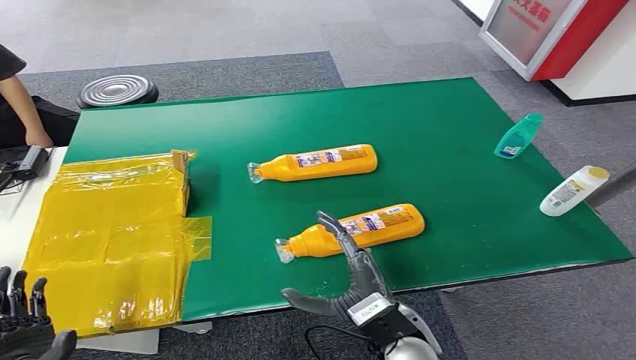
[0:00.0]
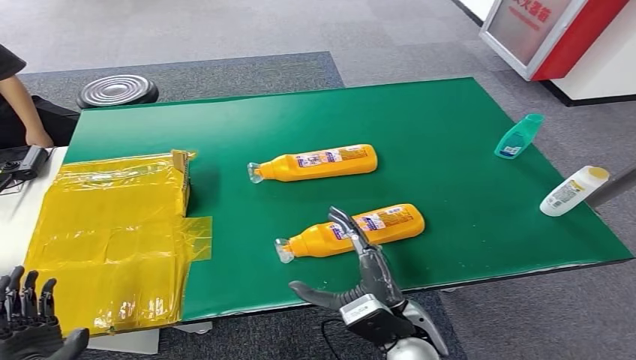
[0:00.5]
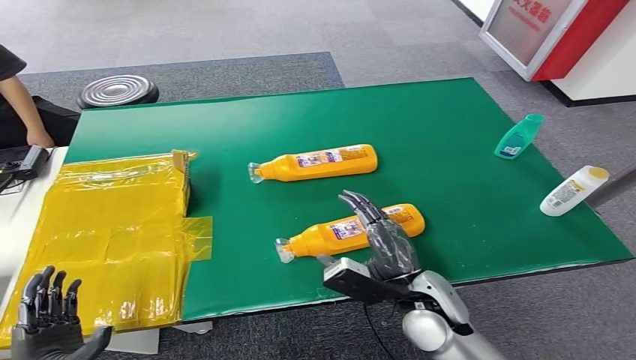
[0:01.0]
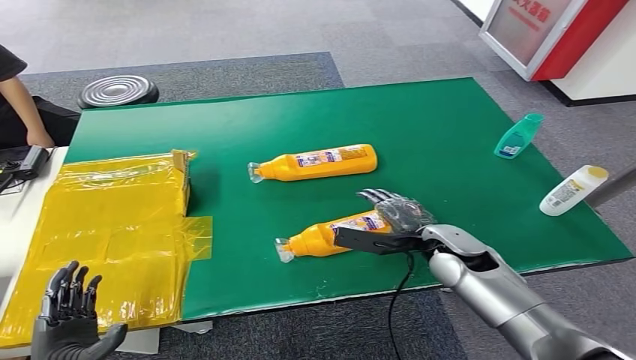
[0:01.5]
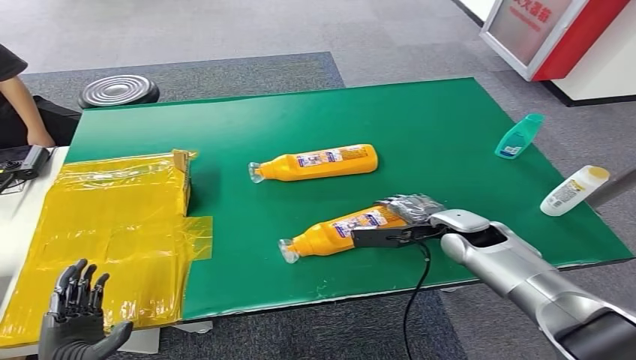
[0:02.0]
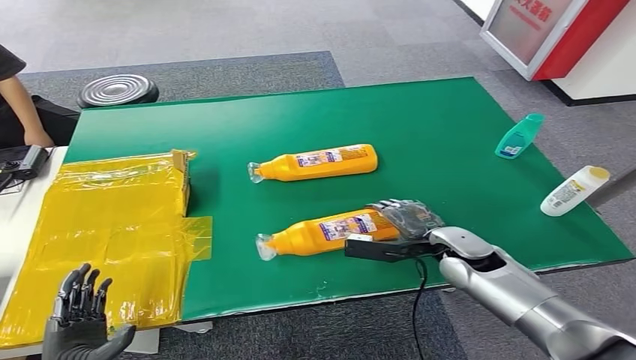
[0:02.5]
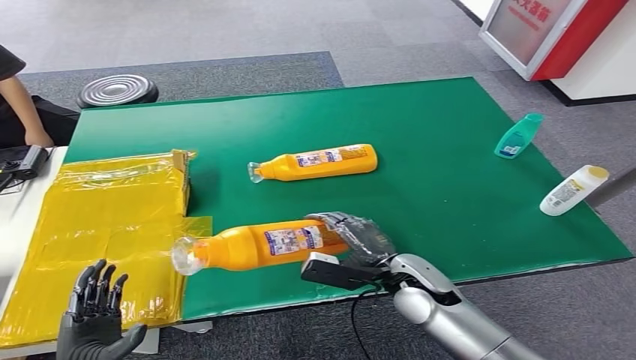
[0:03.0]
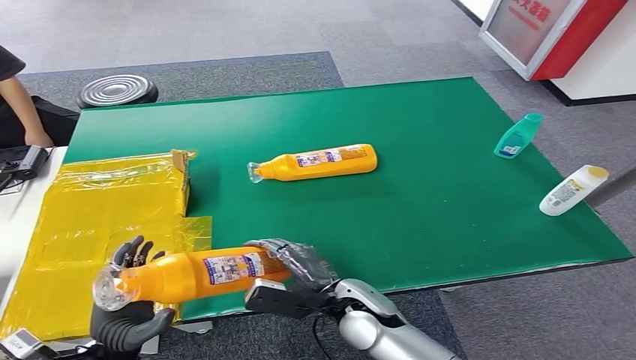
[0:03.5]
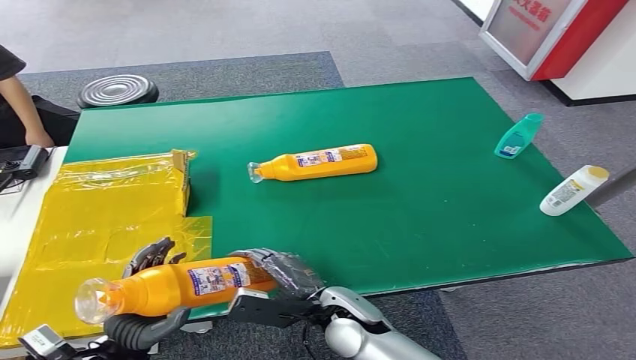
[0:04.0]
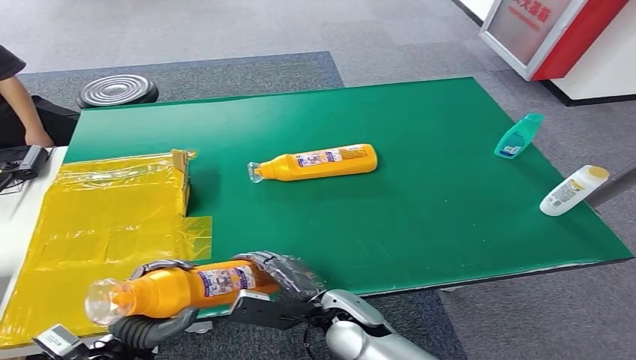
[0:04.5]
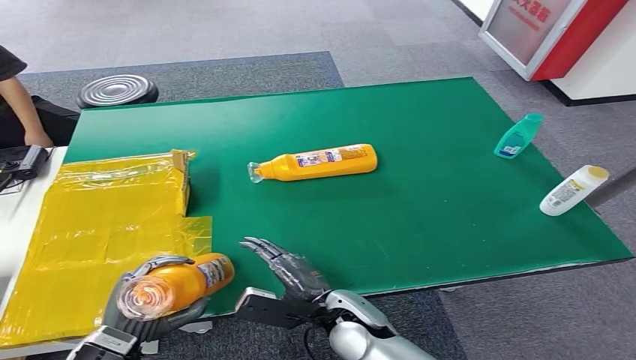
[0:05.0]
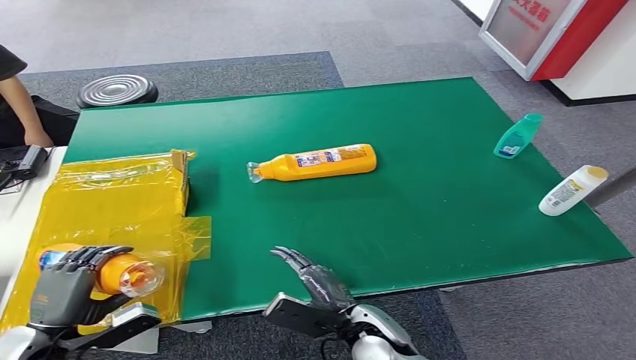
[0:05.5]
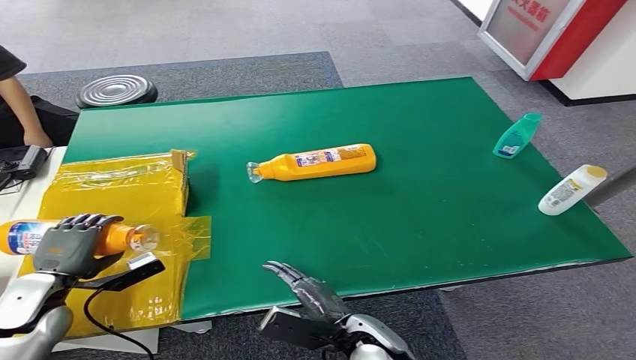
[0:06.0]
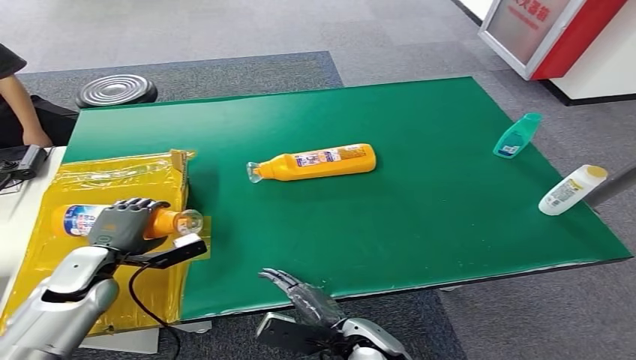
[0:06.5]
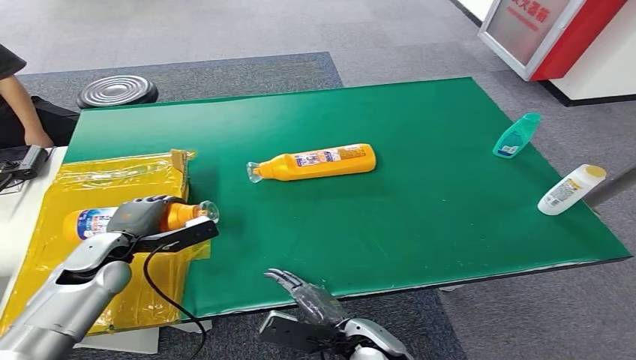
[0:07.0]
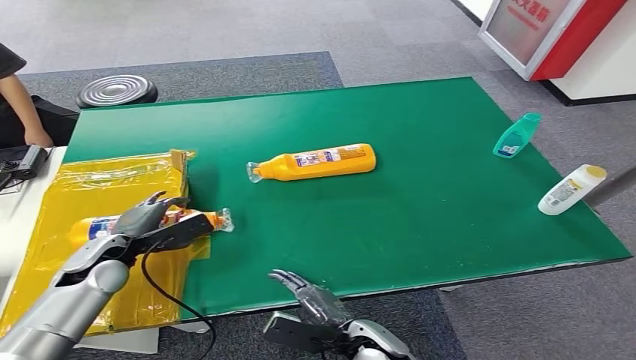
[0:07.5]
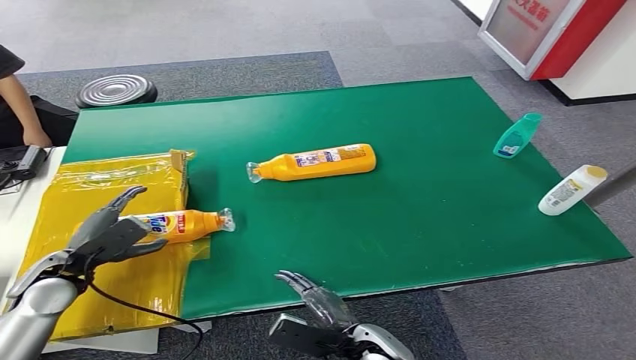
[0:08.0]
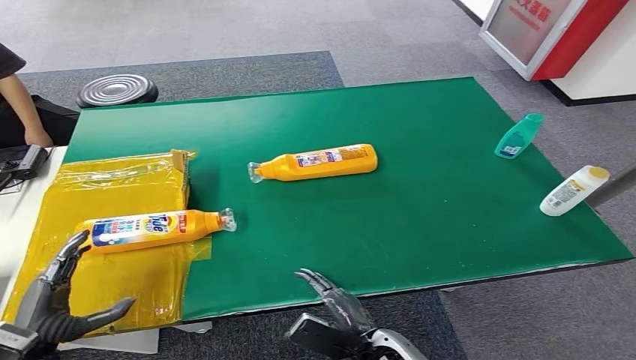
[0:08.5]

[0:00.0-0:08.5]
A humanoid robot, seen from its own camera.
Step, 0:00.0 to 0:03.0: Pick up the bottle from the table.
Step, 0:03.5 to 0:08.5: Turn the bottle to the front side.
0:02.0 to 0:04.0: The left hand shifts some 5 cm to the right. Meanwhile the right hand moves to the left and backward, approximately 25 cm.
0:04.0 to 0:06.5: The right hand goes approximately 5 cm backward. The left hand shifts roughly 20 cm forward and to the left.
0:06.5 to 0:08.5: The left hand moves backward, about 15 cm.
